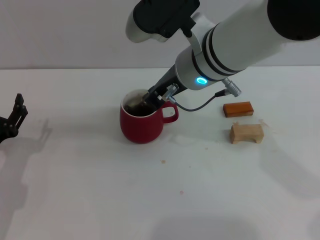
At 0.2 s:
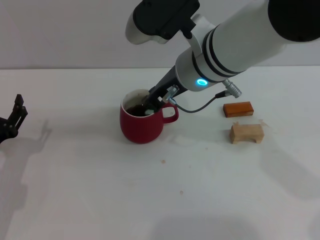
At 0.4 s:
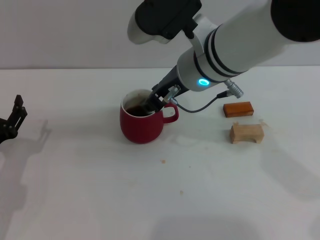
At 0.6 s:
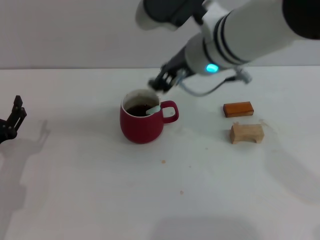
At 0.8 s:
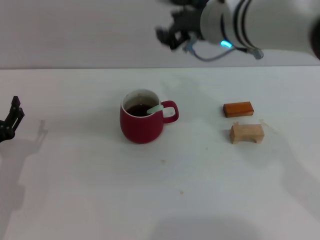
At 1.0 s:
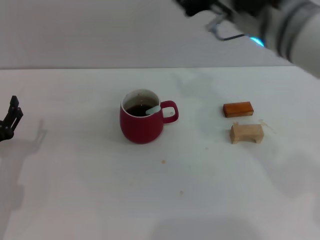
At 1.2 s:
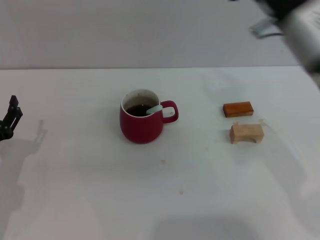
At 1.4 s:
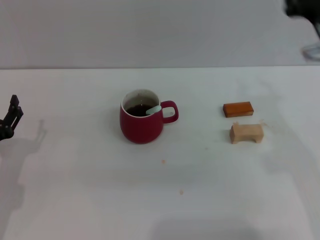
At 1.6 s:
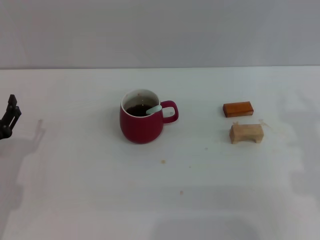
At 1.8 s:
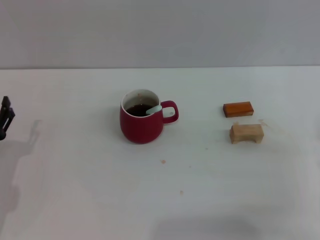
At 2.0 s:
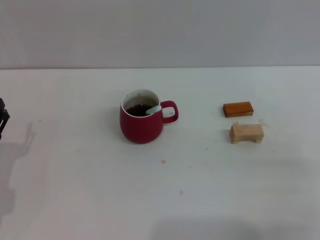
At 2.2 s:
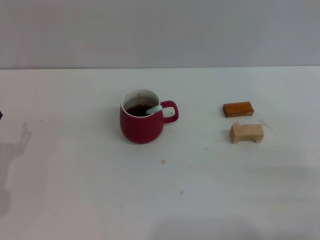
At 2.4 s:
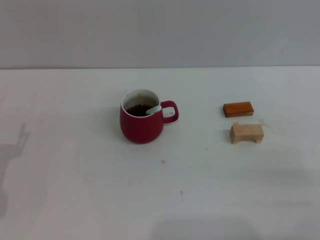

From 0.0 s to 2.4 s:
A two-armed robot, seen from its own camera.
Task of the whole recording: Move the red cup to the center, lift the blue spoon, stir it three times in the cup, and put the spoon into the cup.
From 0.0 s to 1.2 s: The right gripper goes some 15 cm to the right and backward, and opens up.
From 1.2 s to 2.4 s: The right gripper is displaced downward, to the right and backward by about 25 cm, and opens up.
